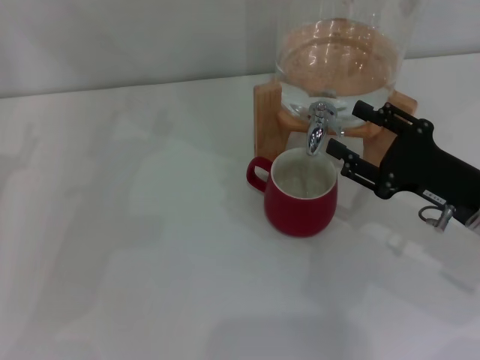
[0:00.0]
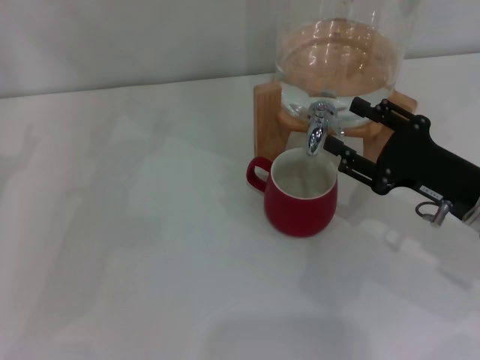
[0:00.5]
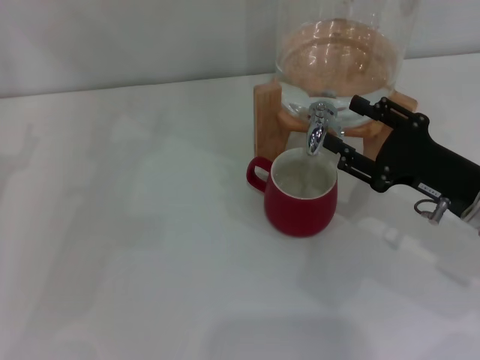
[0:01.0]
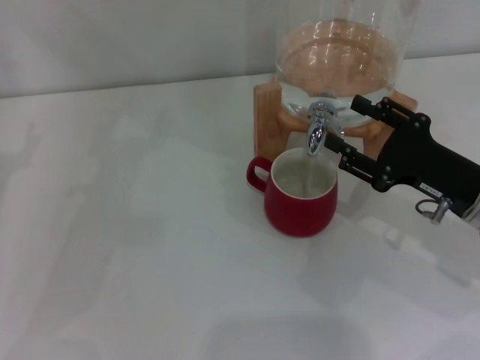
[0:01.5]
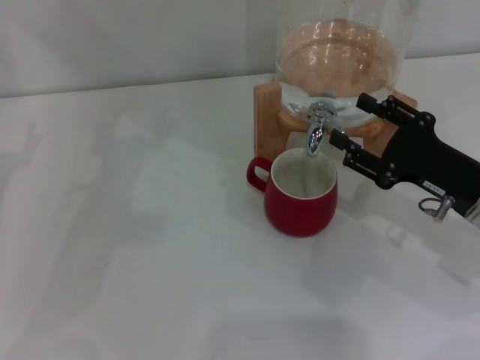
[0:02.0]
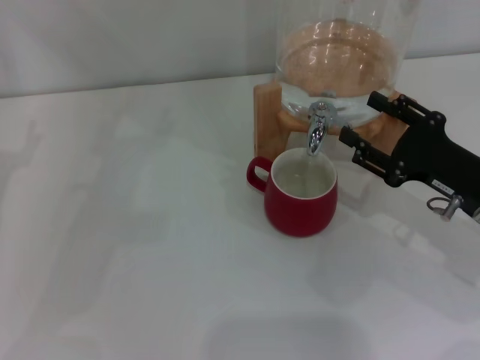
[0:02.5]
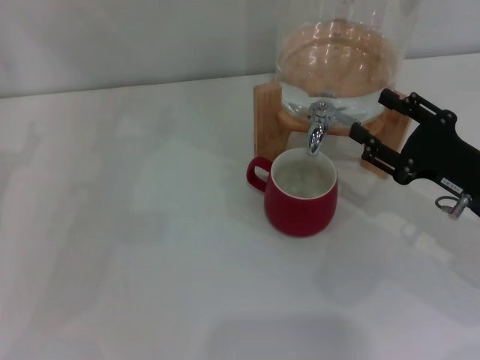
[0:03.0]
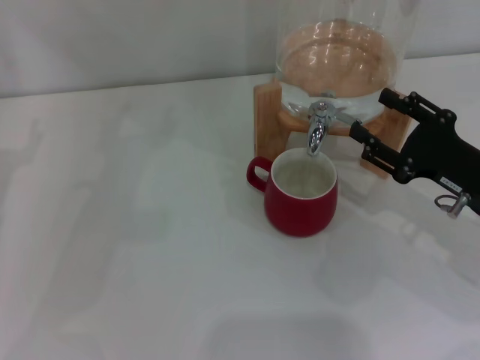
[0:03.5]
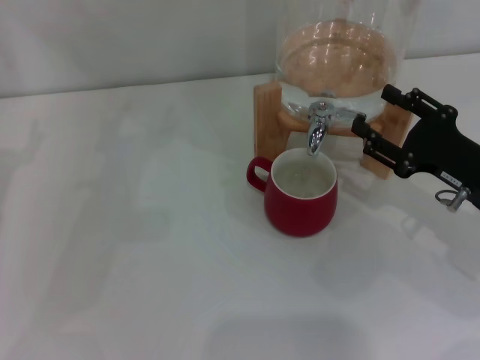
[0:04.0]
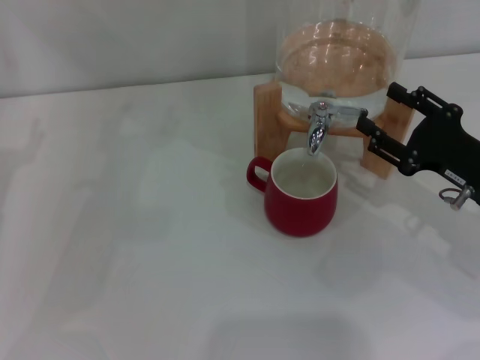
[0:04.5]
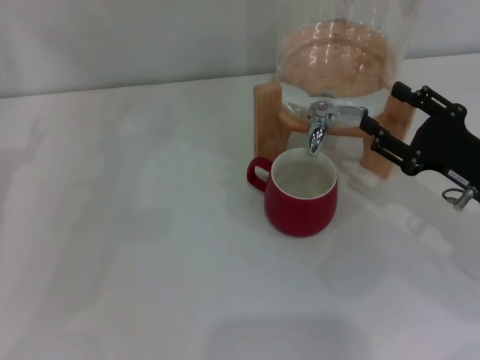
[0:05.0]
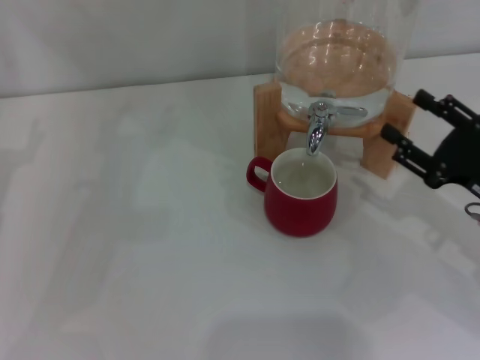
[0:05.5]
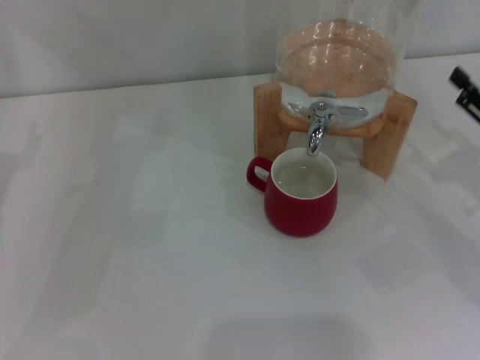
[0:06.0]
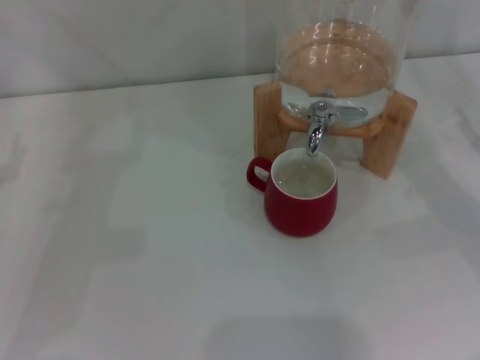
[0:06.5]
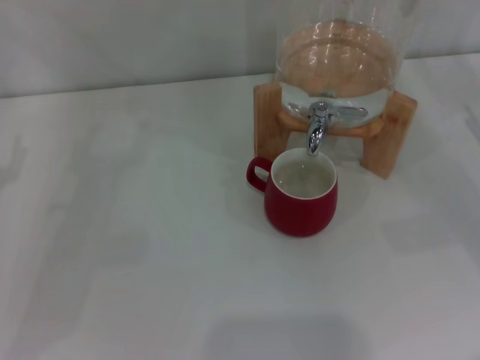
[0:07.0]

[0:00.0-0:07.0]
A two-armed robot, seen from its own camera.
Task of the whole recording: the left gripper pick up the red cup and place it horizontally under the faucet, the right gripper turn on the faucet to fill the cup, and then turn off the faucet.
Step, 0:01.5 to 0:05.0: Close the dispenser valve with the right gripper.
0:00.0 to 0:02.0: Neither gripper changes place.
0:02.0 to 0:03.5: There are only small adjustments of the grippers.
0:03.5 to 0:05.0: Both grippers stay put.
0:05.0 to 0:07.0: The right gripper moves to the right, about 10 cm.

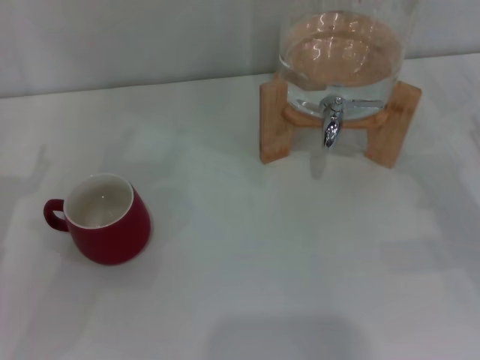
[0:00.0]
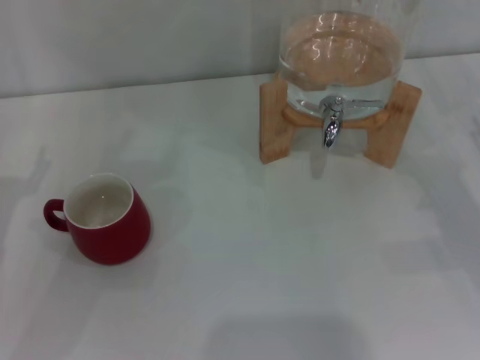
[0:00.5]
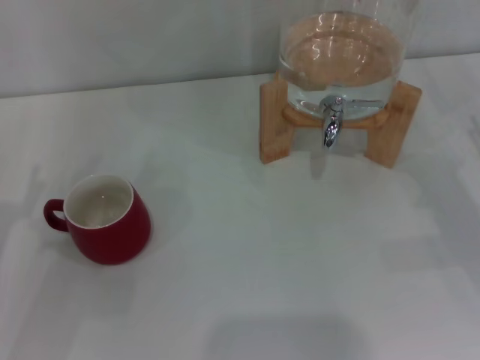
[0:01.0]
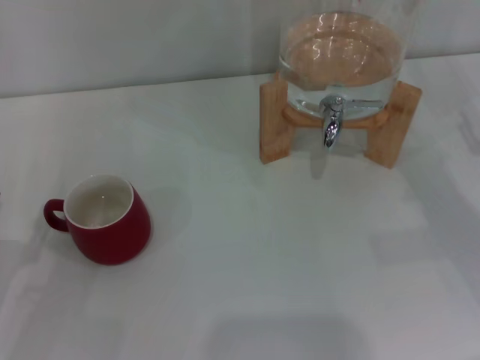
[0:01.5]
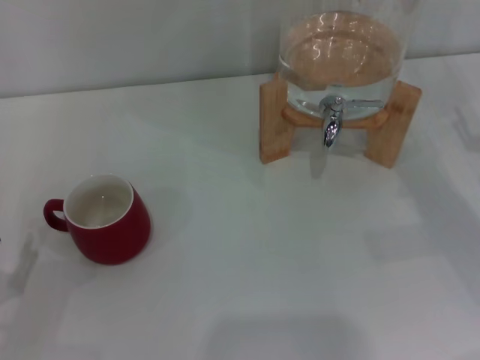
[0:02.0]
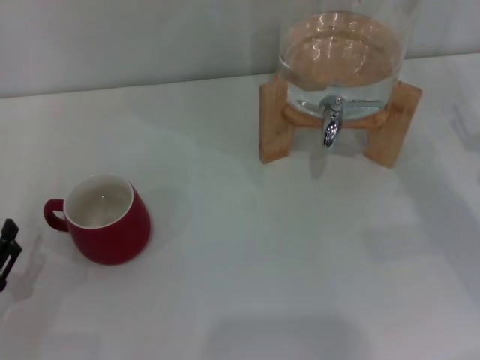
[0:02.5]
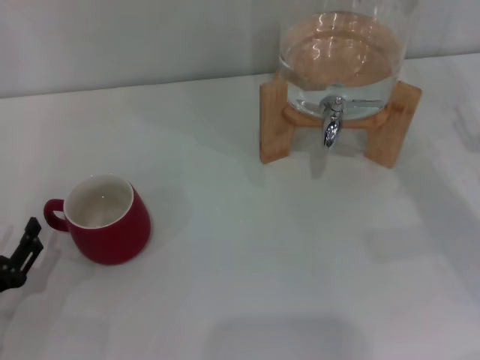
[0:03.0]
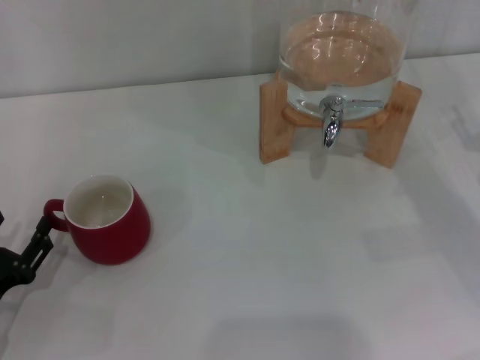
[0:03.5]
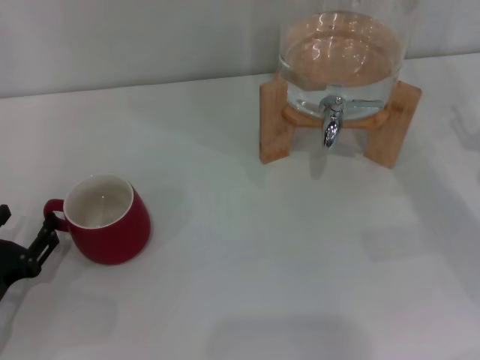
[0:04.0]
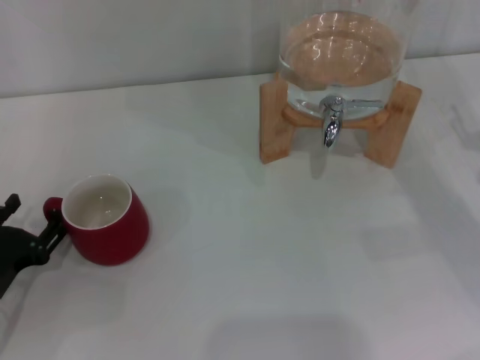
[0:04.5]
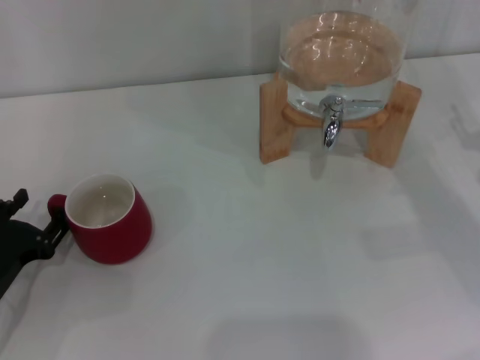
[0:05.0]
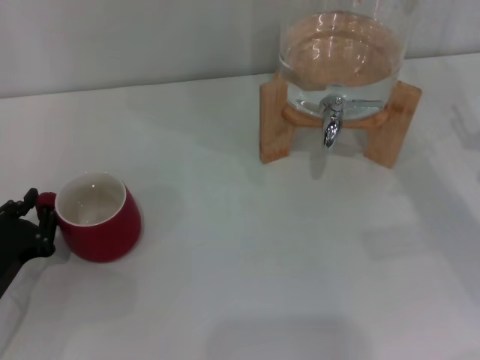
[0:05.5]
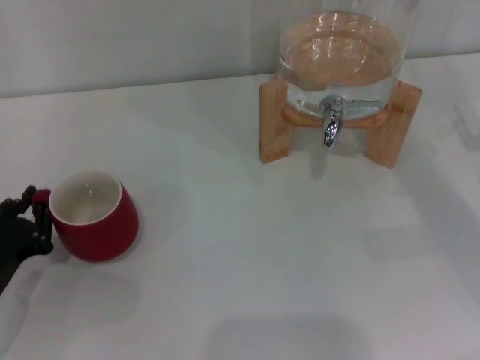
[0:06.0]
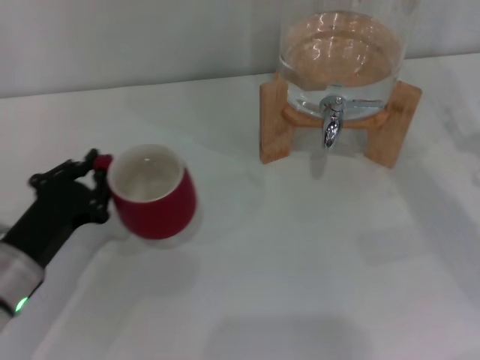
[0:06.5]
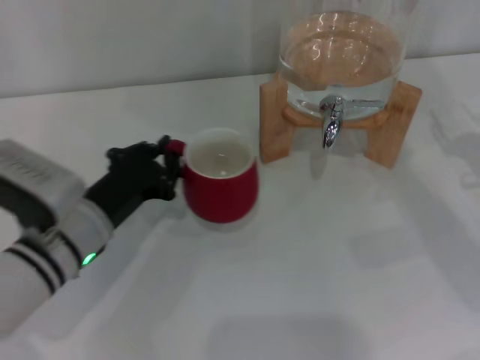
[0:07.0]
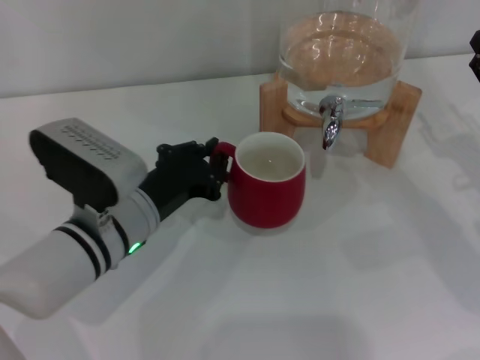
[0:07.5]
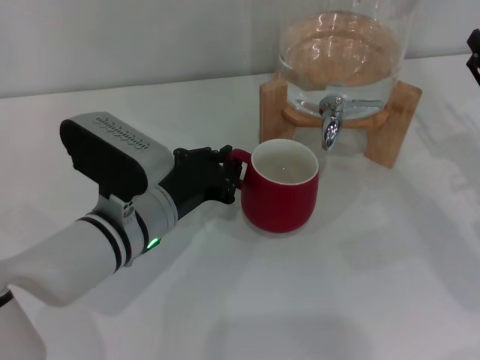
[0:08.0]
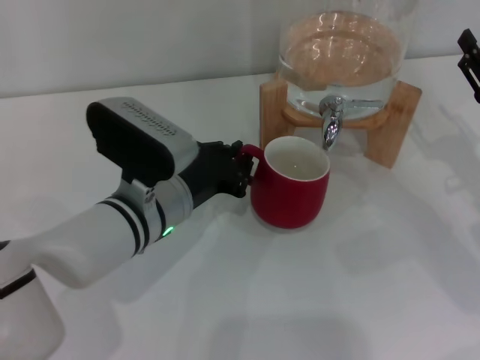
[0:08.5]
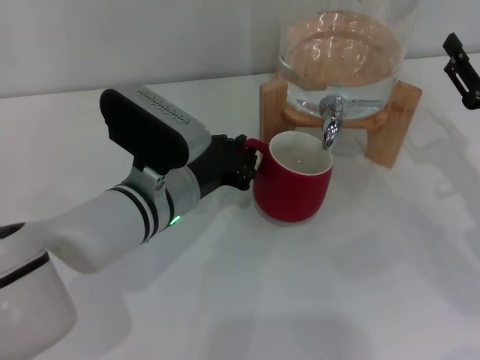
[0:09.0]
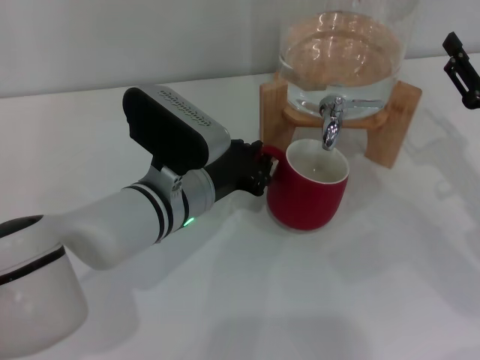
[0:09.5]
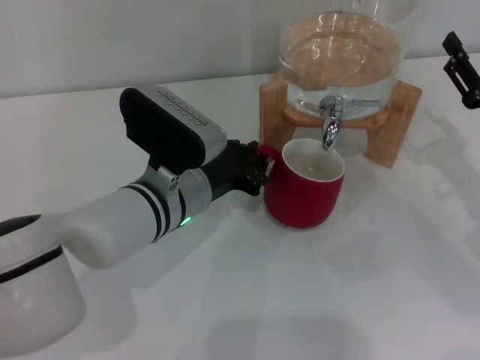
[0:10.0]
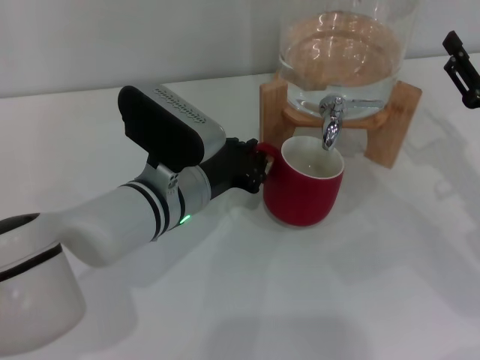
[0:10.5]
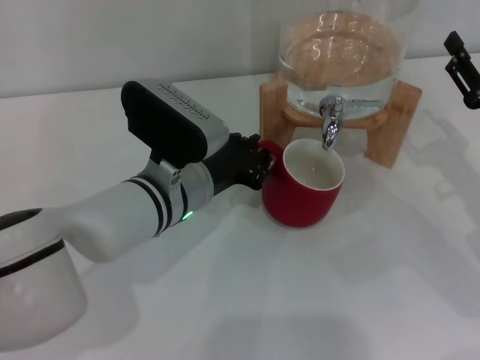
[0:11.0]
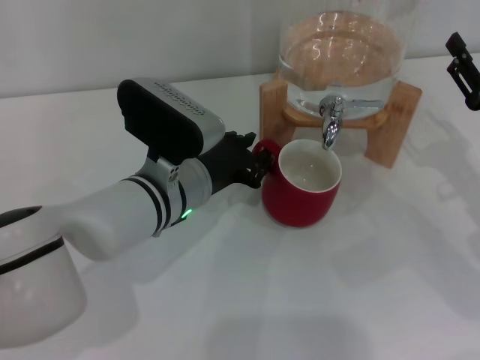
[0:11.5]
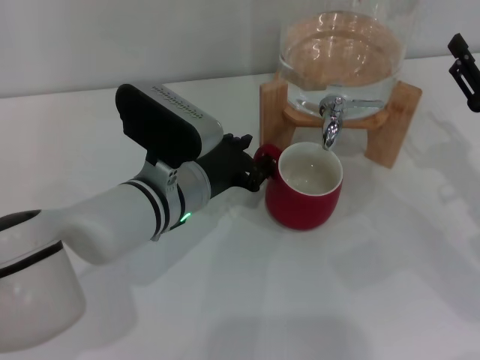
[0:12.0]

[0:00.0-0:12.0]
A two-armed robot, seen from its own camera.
Task of the whole recording: the left gripper pick up the red cup and place it horizontally under the faucet, the right gripper turn on the faucet to fill the cup, and then turn off the faucet.
0:02.0 to 0:04.0: The grippers make only small movements.
0:04.0 to 0:06.0: The left gripper closes up.
0:06.0 to 0:08.0: The left gripper is displaced to the right by about 20 cm.
0:08.0 to 0:10.0: There are only small adjustments of the grippers.
0:10.0 to 0:12.0: The left gripper opens up.

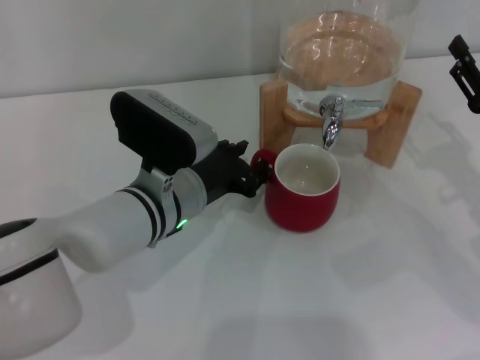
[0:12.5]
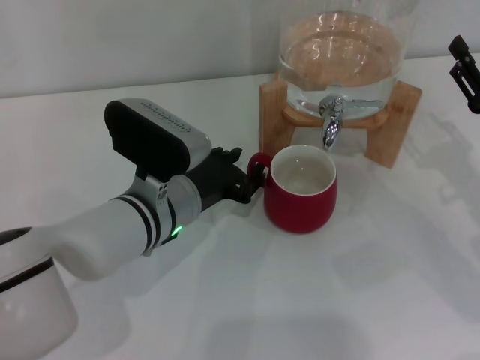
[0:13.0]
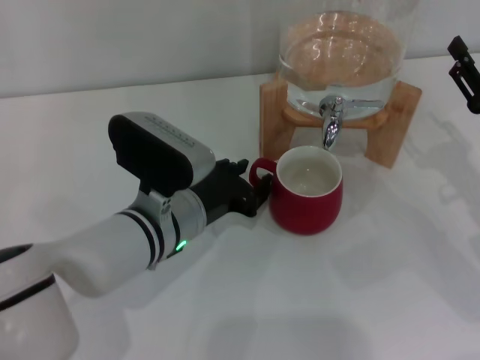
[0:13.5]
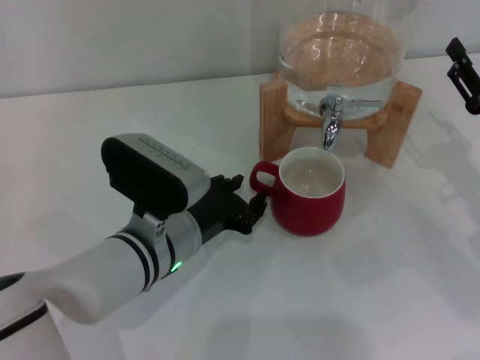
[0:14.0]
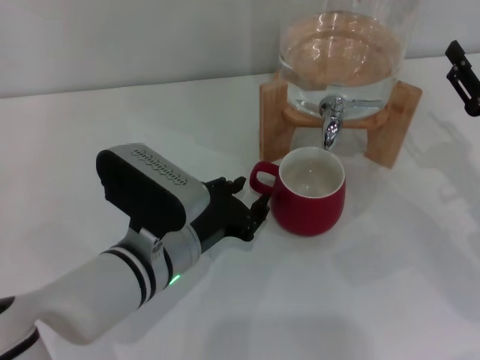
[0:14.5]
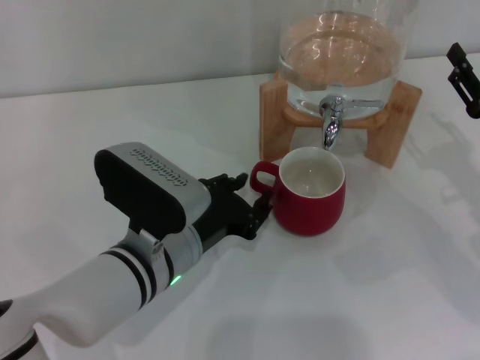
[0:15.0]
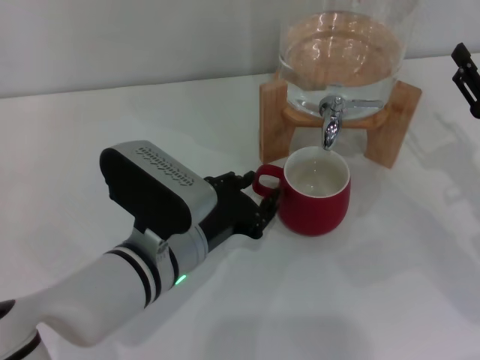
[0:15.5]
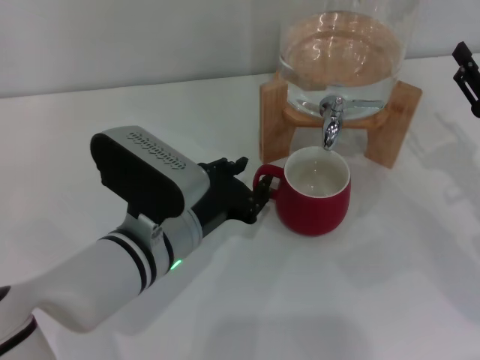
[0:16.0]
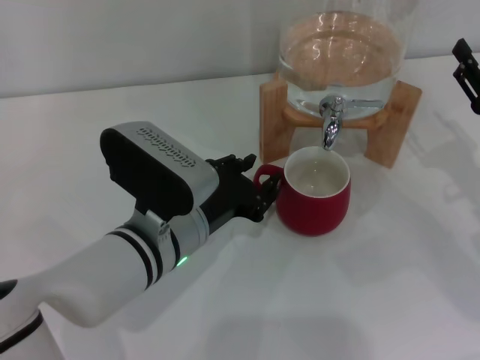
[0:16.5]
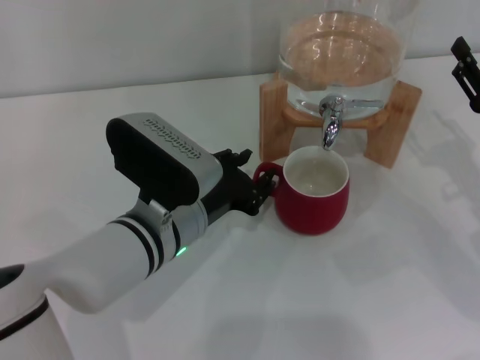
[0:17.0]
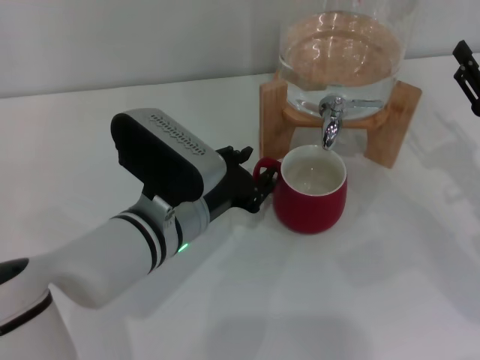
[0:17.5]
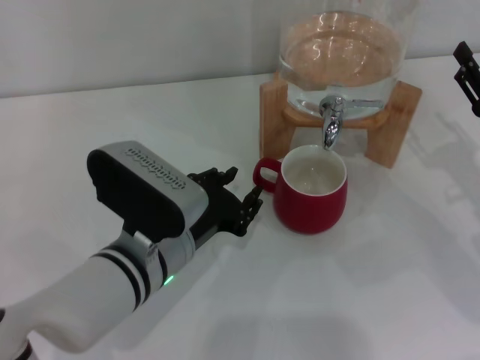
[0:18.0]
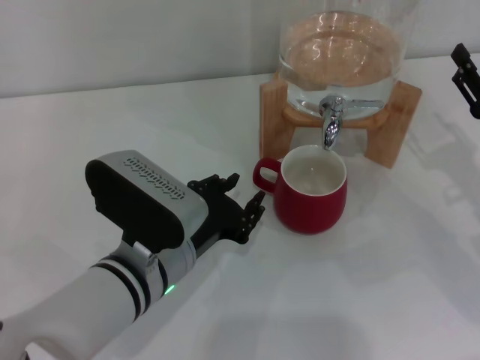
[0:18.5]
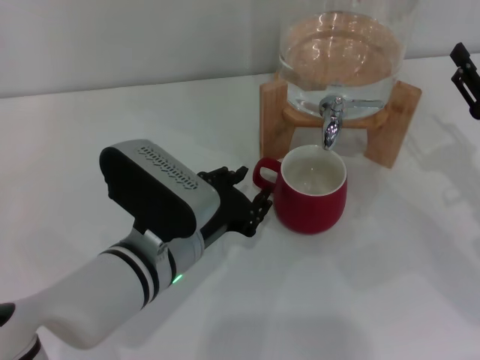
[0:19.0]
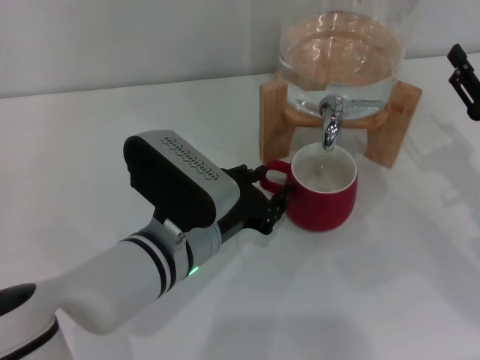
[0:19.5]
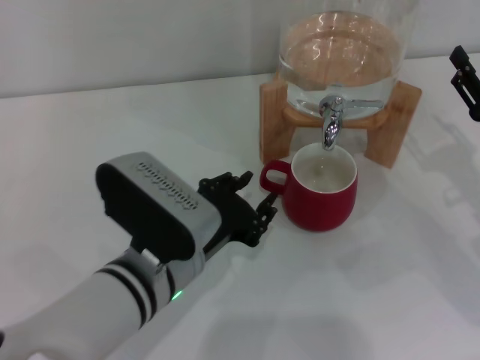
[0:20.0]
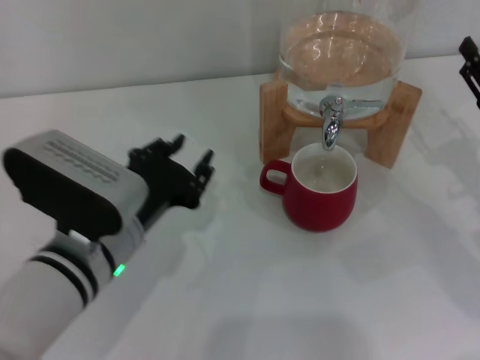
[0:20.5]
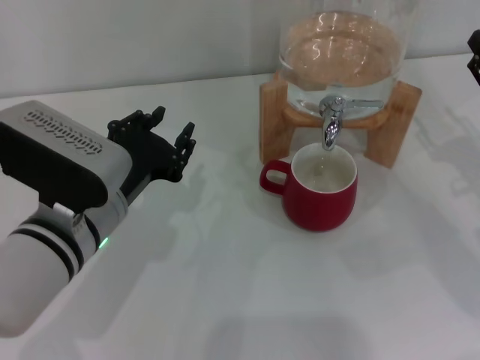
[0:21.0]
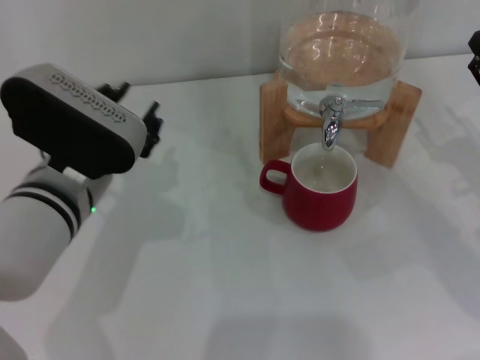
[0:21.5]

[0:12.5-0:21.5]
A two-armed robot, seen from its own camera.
Task of the whole recording: the left gripper pick up the red cup and place it horizontally under the faucet, the right gripper turn on the faucet to fill the cup, and then turn off the faucet.
Step, 0:12.5 to 0:20.0: Move the cup beneath the water dispenser nozzle with the left gripper.
0:12.5 to 0:14.5: The left gripper is displaced backward by roughly 5 cm.
0:14.5 to 0:19.5: There are only small adjustments of the grippers.
0:19.5 to 0:21.5: The left gripper is displaced to the left and upward by approximately 10 cm.
